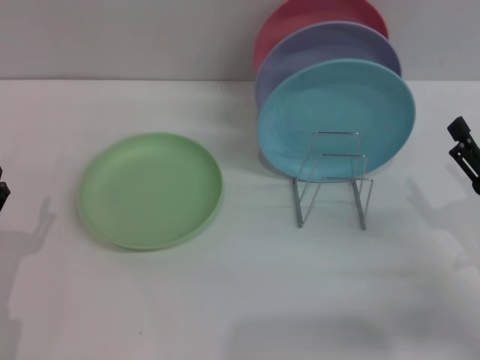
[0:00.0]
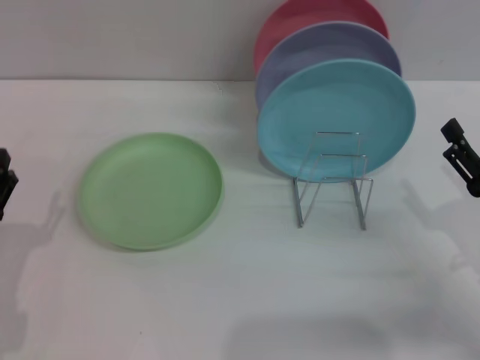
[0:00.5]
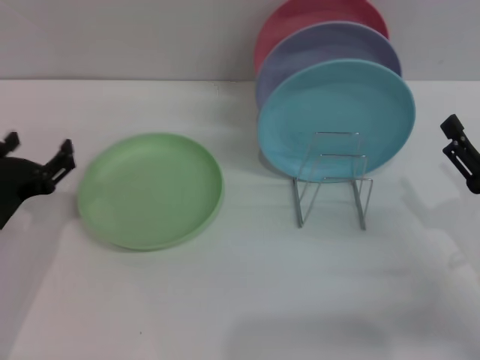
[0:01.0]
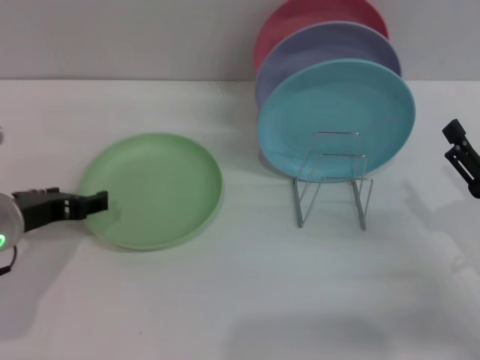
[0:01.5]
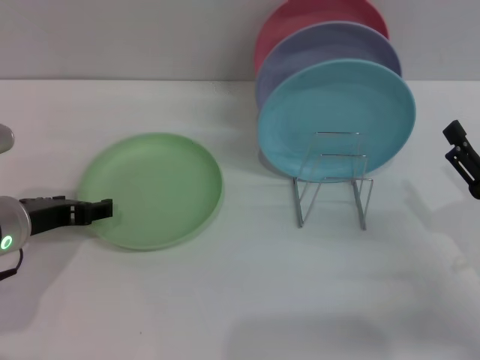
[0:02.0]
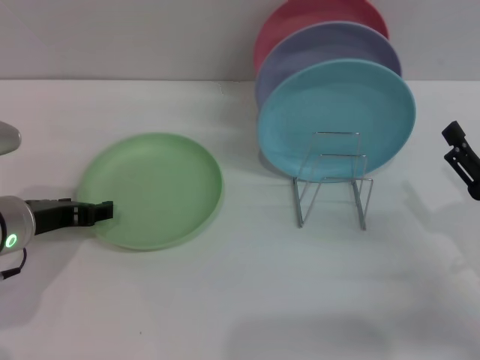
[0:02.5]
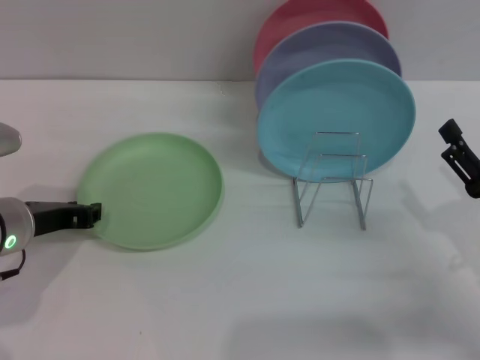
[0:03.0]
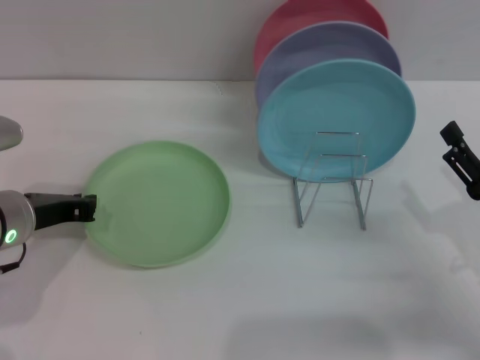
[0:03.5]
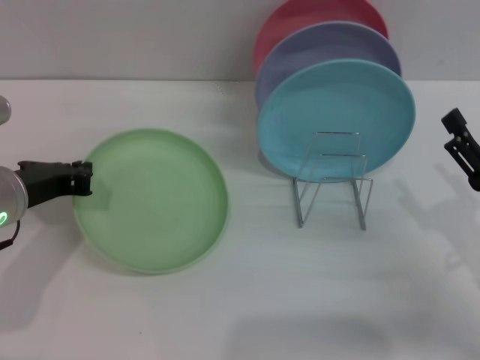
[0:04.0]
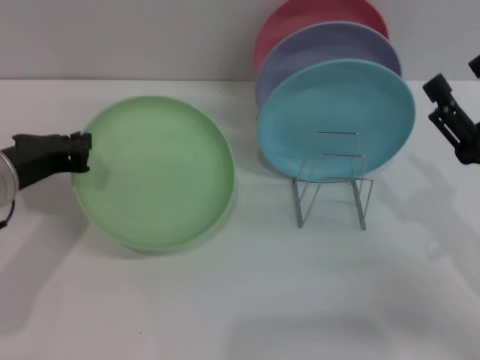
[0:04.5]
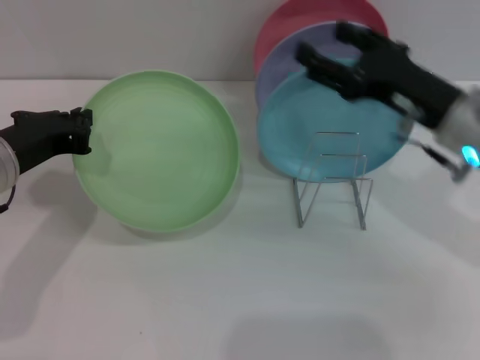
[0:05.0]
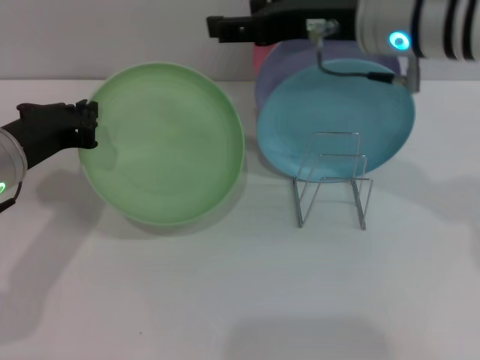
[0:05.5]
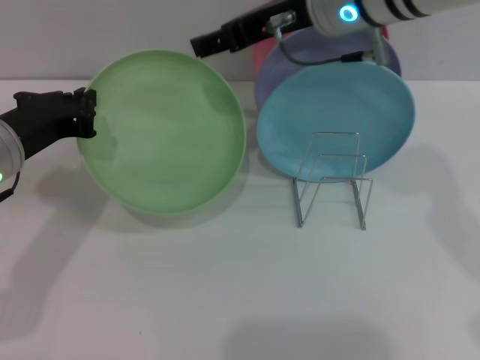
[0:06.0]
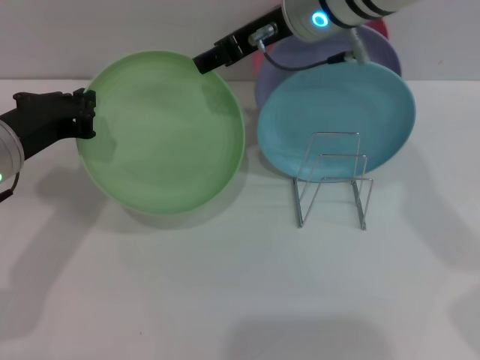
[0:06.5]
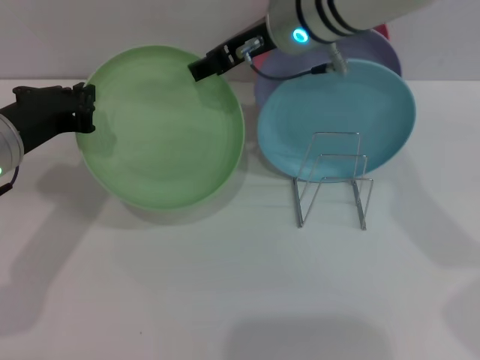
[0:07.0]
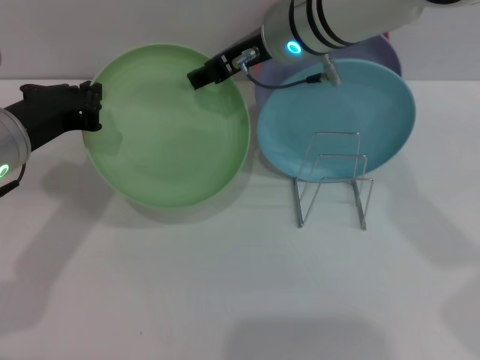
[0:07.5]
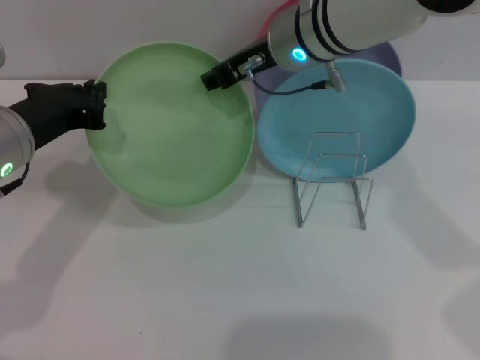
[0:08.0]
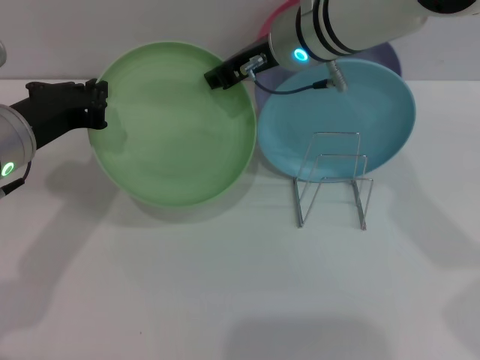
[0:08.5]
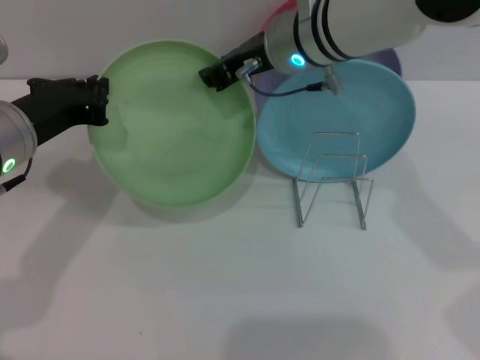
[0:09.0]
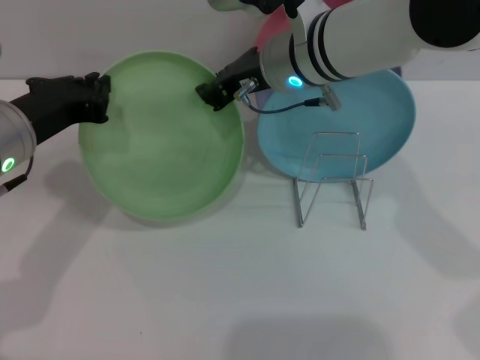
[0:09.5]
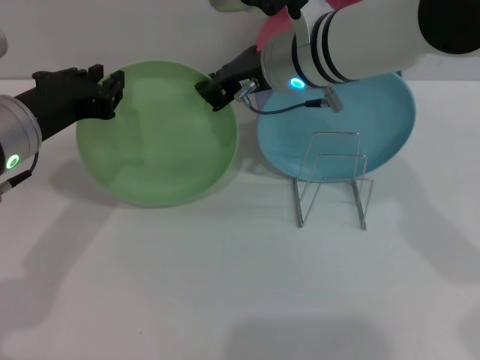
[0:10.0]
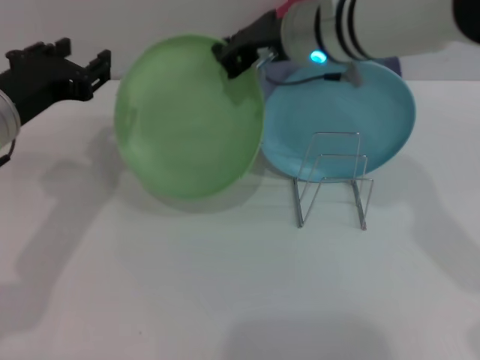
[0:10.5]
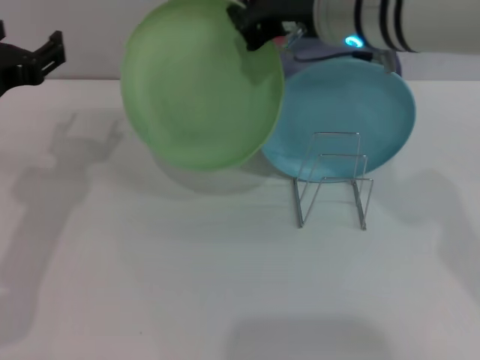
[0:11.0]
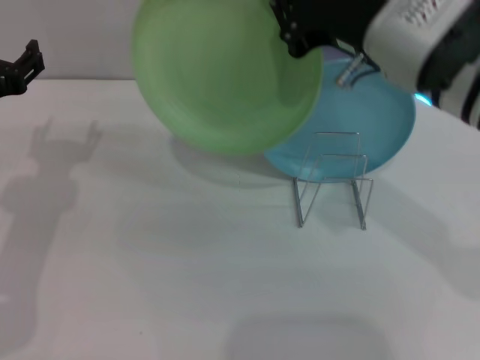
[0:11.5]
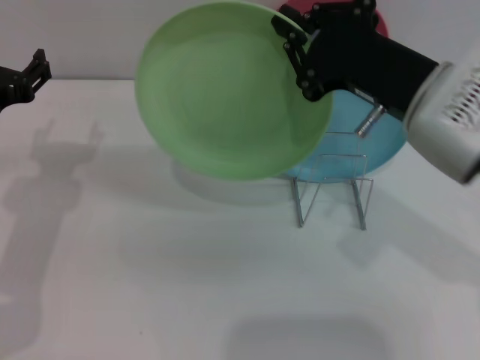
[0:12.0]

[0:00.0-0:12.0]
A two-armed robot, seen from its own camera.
Task of the whole recording: Grip the plate with one hand, pass it to the other, then set it on the shelf.
Step, 0:00.0 to 0:04.0: Pick up the plate with the left gripper.
Step, 0:04.5 to 0:10.5: Pass the plate from the left gripper to the right gripper.
0:00.0 to 0:02.0: The left gripper shifts about 15 cm forward, upward and to the right.
0:02.0 to 0:04.0: The left gripper closes.
0:04.0 to 0:06.0: The right gripper moves upward, to the left and forward, some 35 cm.
0:06.0 to 0:08.0: The right gripper shifts by about 5 cm.
0:08.0 to 0:10.0: The right gripper closes up.
0:10.0 to 0:12.0: The left gripper shifts by about 5 cm, and opens its fingers; the right gripper goes roughly 15 cm backward and to the right.

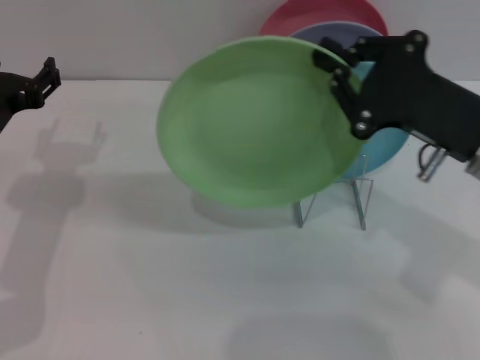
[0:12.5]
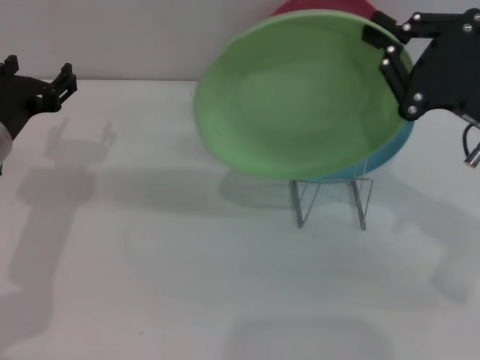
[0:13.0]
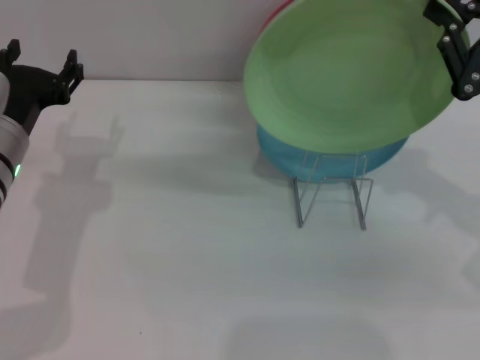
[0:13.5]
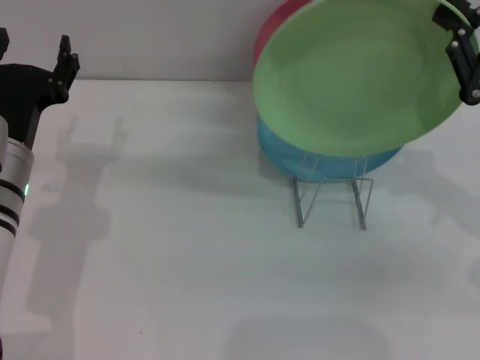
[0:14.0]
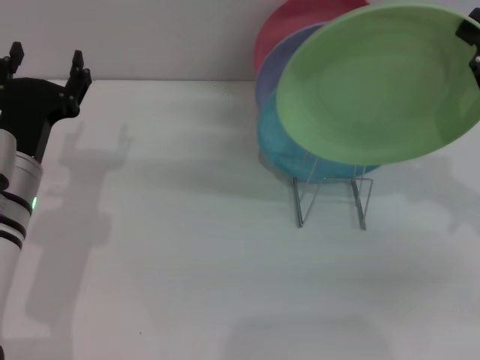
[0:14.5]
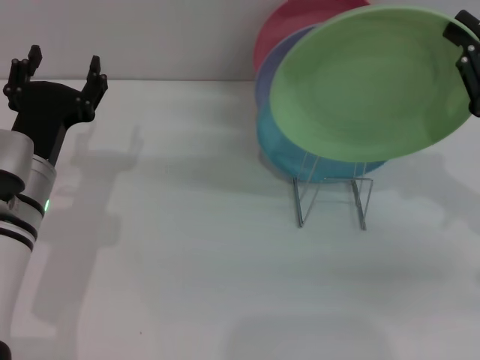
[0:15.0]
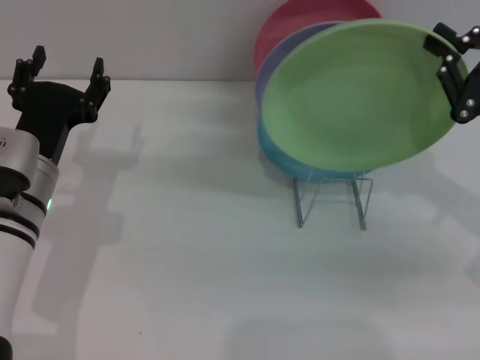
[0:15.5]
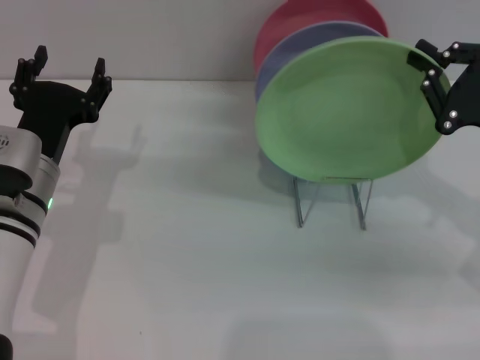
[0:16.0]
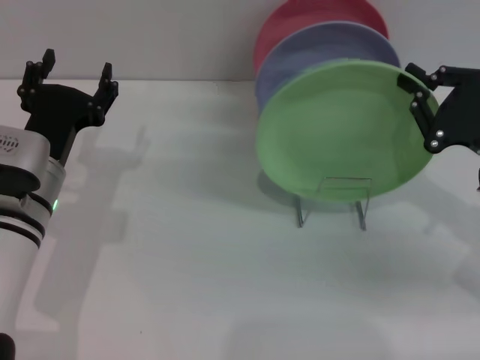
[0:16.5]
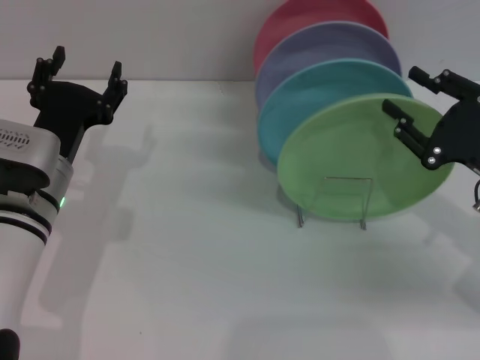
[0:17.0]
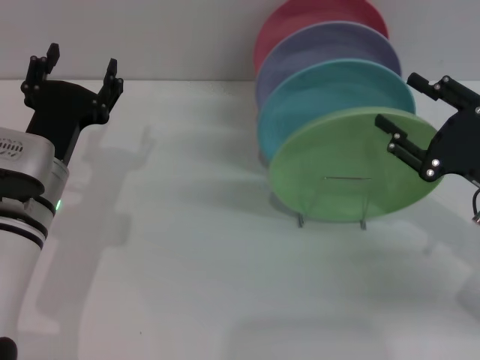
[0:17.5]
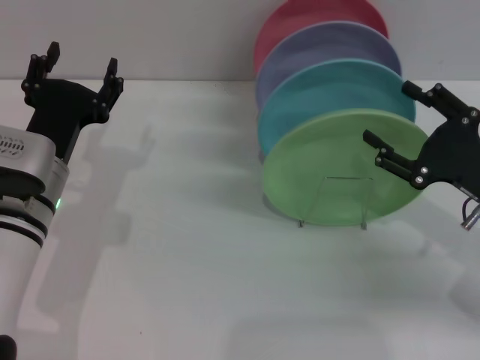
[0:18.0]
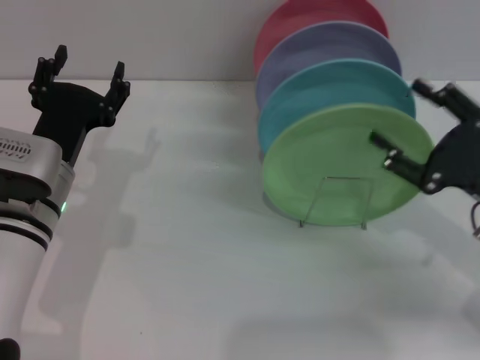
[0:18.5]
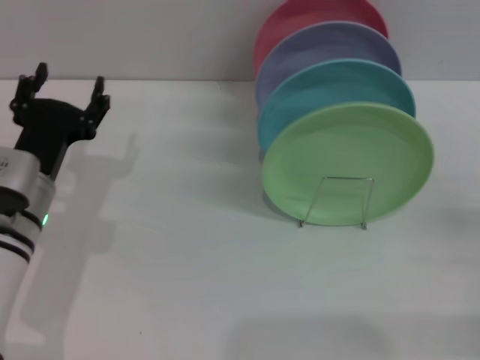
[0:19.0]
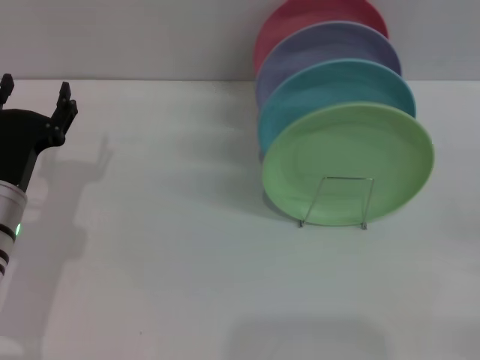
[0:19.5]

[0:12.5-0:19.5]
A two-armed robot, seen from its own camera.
Task of the whole recording: Grip the plate with one hand, pass it to the other, then set it on the shelf.
Step, 0:12.5 to 0:18.0: Place the plate on the shelf with the right gripper.
0:12.5 to 0:14.5: The left gripper ends up roughly 5 cm from where it was, while the right gripper shifts approximately 10 cm to the right.
0:14.5 to 0:16.0: The grippers stay close to where they were, moving slightly.
0:16.0 to 0:17.5: The right gripper opens up.
0:17.5 to 0:19.5: The right gripper moves to the right and backward, some 15 cm, and opens. Meanwhile the left gripper ends up roughly 5 cm from where it was.

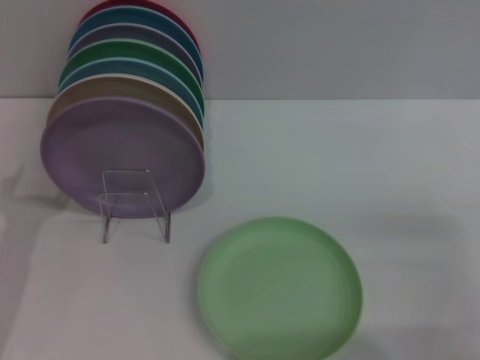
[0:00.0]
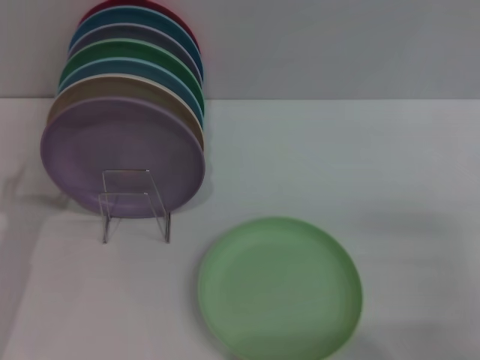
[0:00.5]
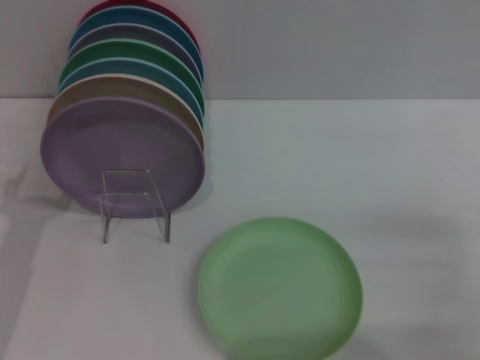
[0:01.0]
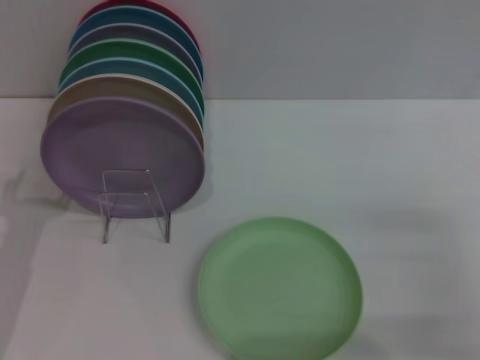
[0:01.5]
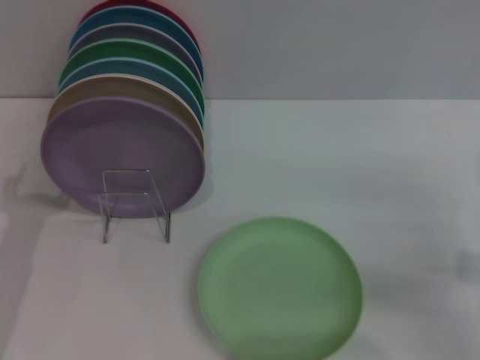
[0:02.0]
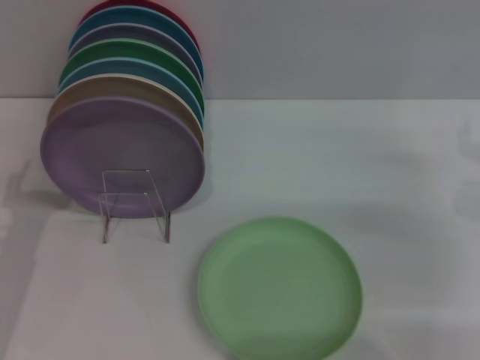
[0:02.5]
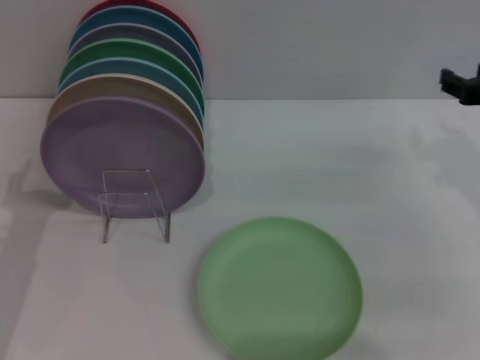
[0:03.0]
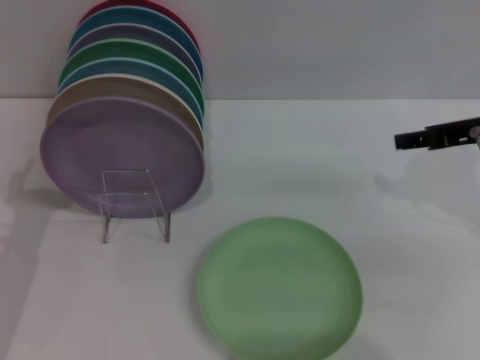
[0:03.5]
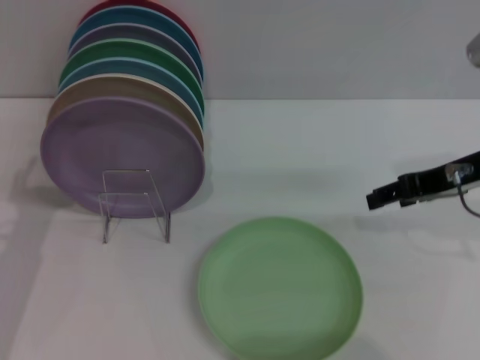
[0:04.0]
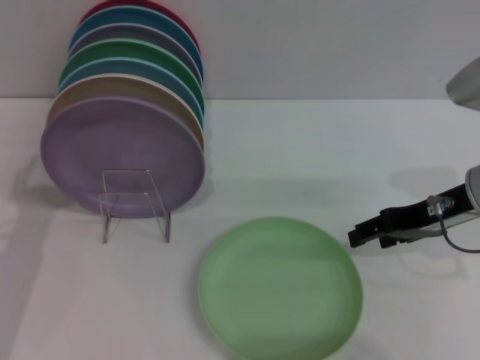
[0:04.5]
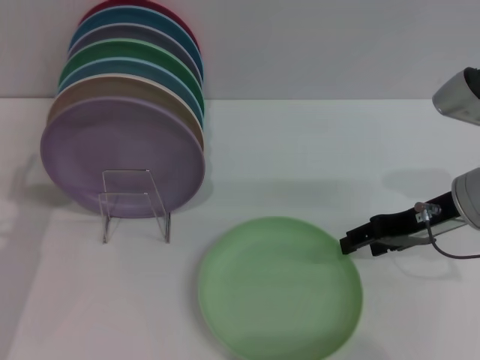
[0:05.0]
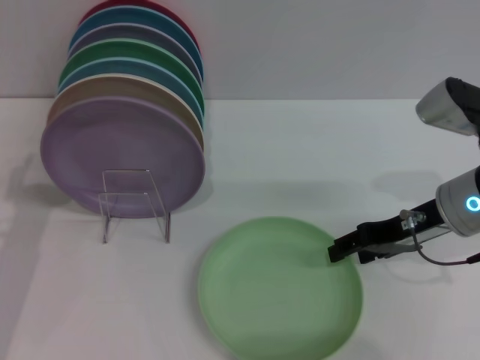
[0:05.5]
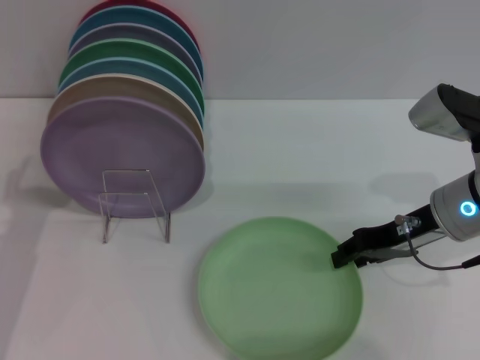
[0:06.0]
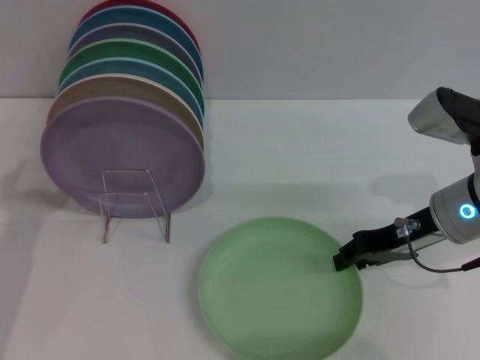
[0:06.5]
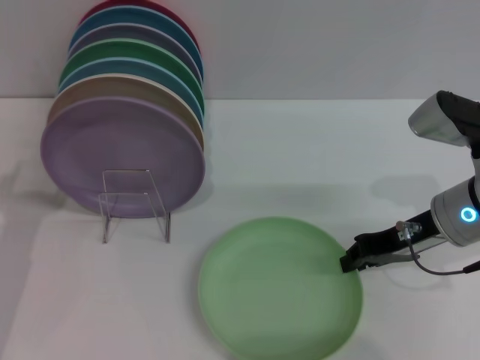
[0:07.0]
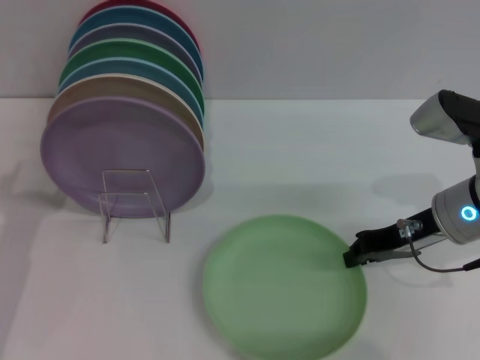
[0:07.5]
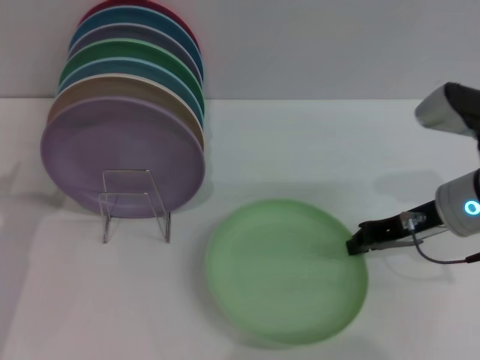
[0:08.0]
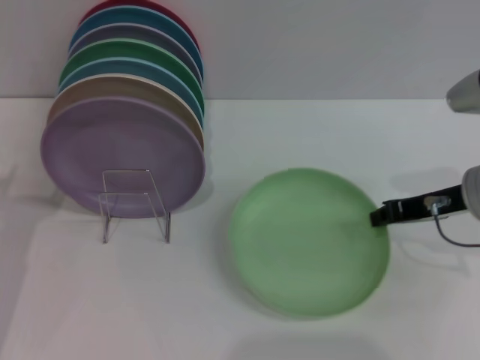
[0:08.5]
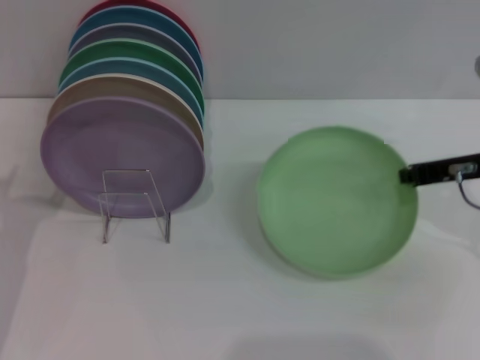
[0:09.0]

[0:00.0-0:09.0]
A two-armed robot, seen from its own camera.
Task of the whole recording: Grip the plate with one hand, pass it to the other, then set it on the shelf.
0:02.0 to 0:04.5: The right gripper is displaced upward, to the left and forward by about 10 cm.
0:04.5 to 0:07.0: The right gripper closes up.
0:07.0 to 0:09.0: The right gripper shifts some 5 cm upward.
